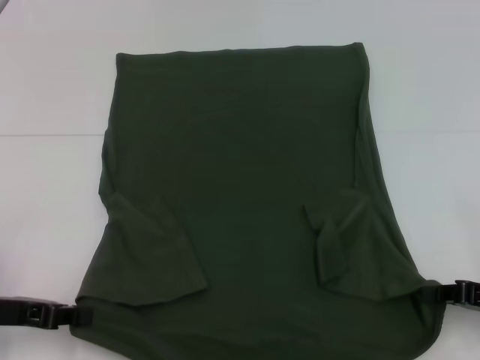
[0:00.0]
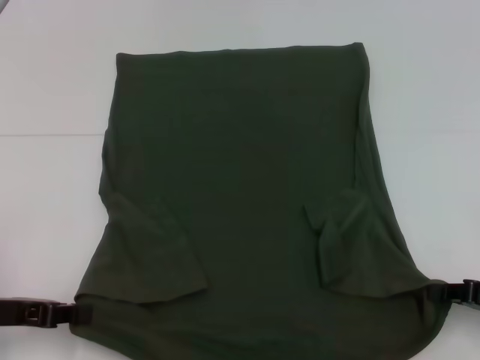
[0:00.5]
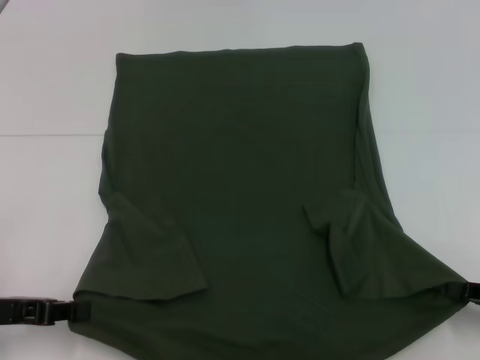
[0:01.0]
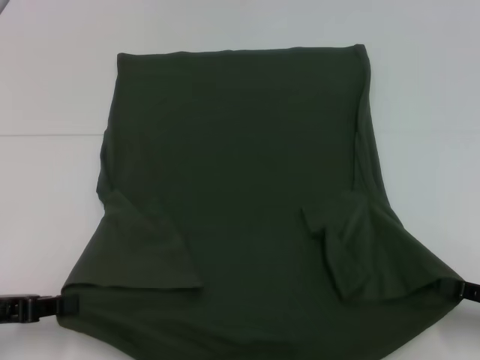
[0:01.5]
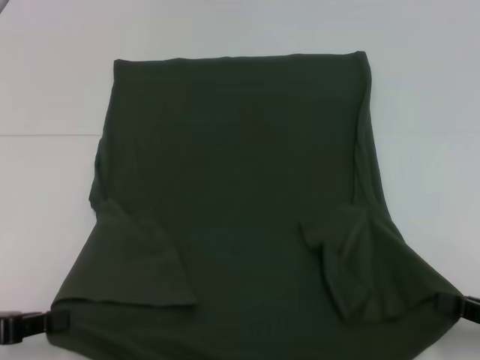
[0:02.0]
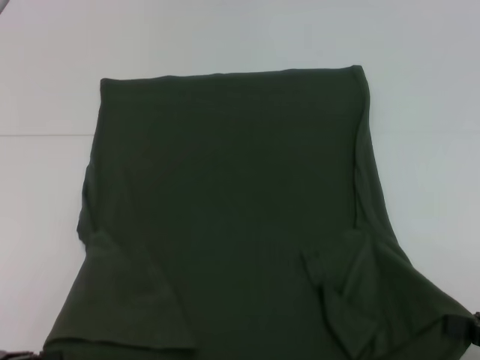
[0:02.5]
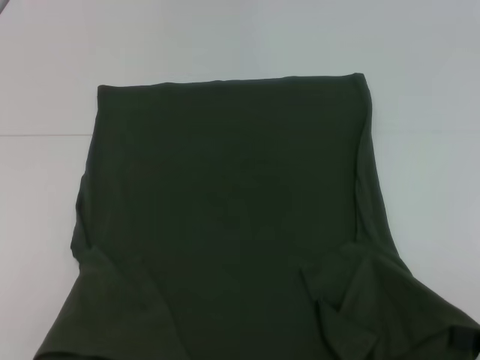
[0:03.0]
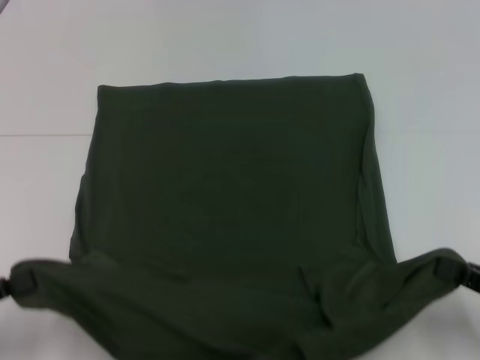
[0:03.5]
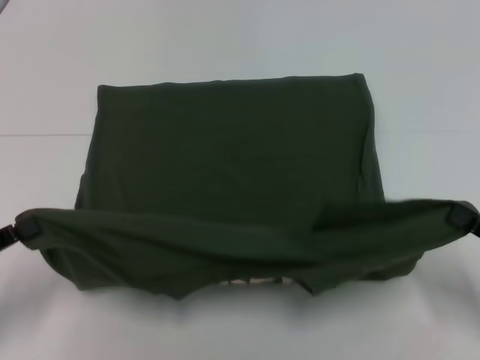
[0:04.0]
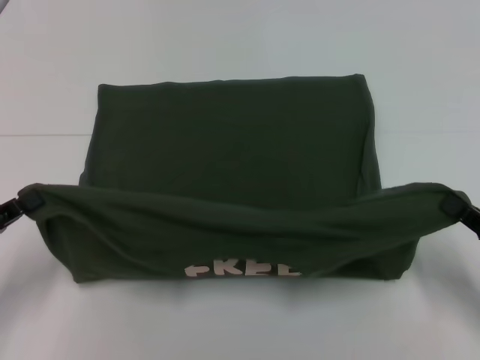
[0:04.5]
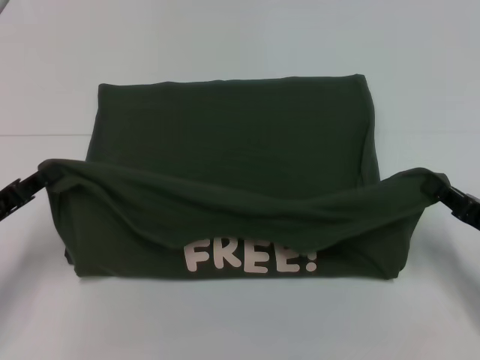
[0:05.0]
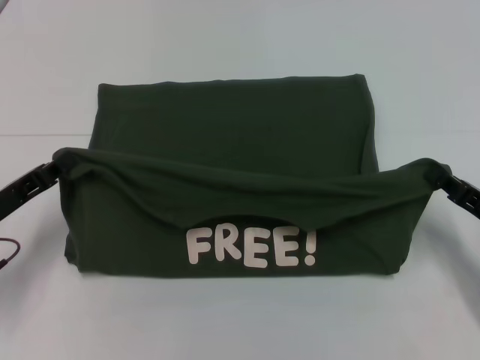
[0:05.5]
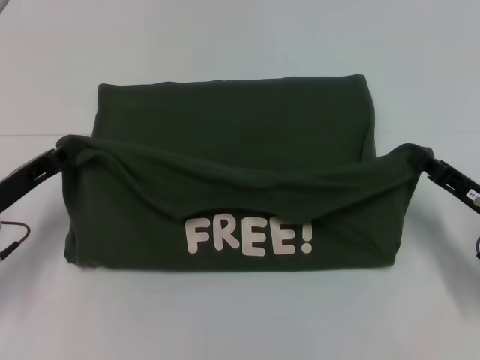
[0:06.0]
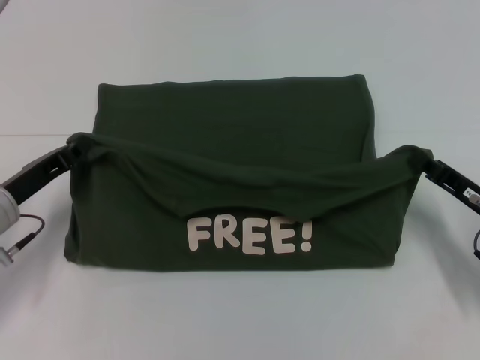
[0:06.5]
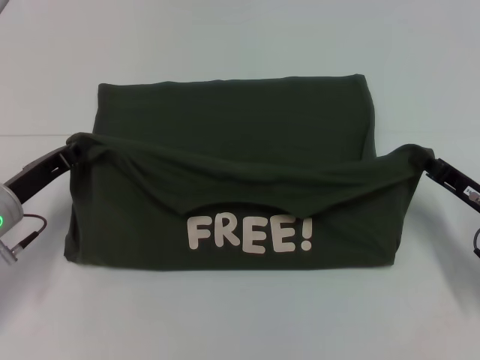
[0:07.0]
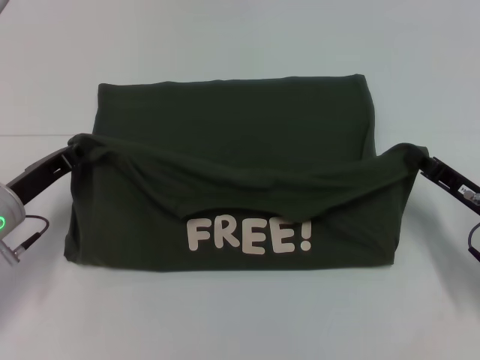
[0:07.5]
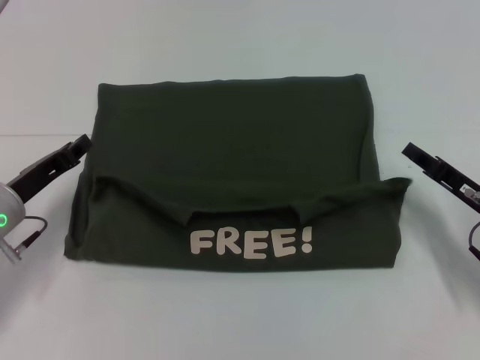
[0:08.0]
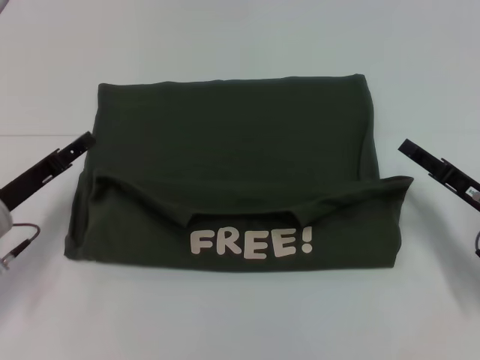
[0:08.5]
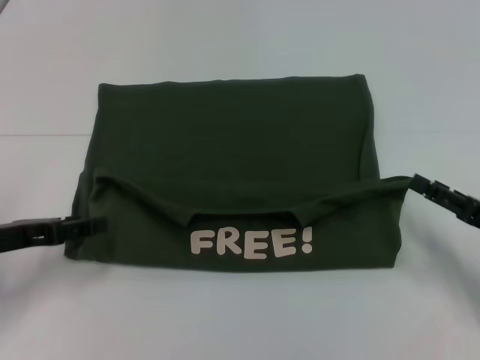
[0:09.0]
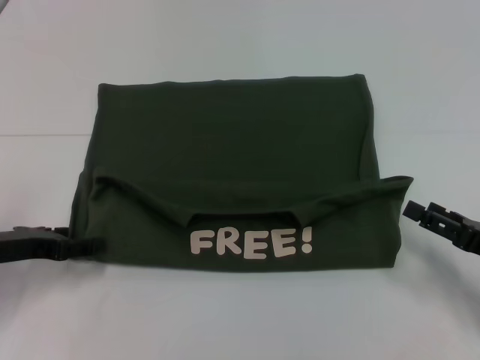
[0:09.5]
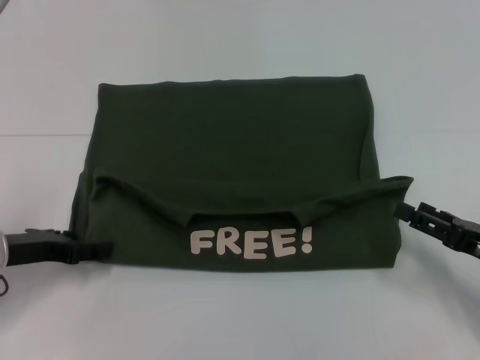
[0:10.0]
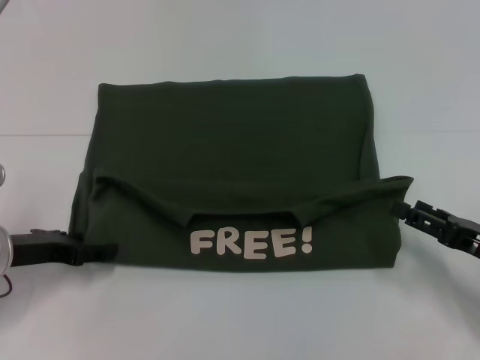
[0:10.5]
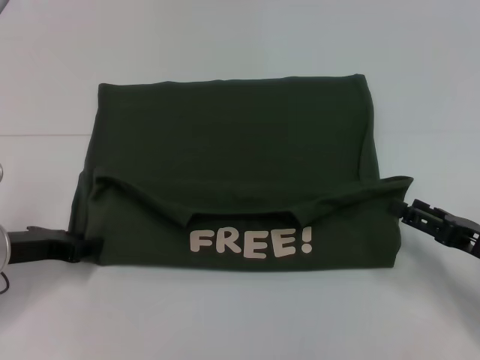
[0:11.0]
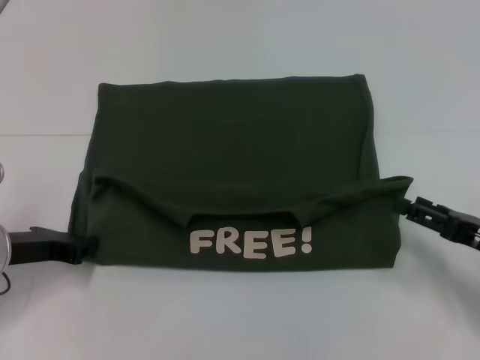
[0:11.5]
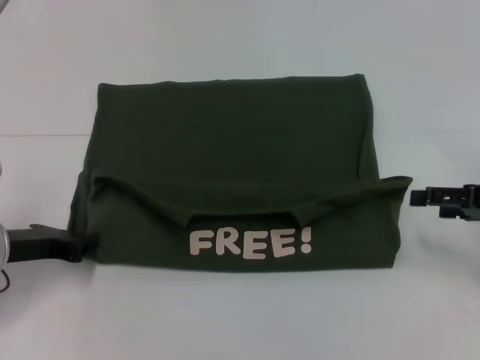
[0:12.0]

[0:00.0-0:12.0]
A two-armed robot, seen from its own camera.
Step, 0:00.0 to 0:08.0: Fold the clothes with your left hand.
Step, 0:00.0 to 0:08.0: Fold the clothes with your right hand.
0:00.0 to 0:02.0: The left gripper ends up roughly 5 cm from where it was; the right gripper is displaced backward by roughly 5 cm.
0:04.0 to 0:06.0: The right gripper goes roughly 10 cm forward and to the left; the left gripper moves forward and to the right, about 10 cm.
0:06.0 to 0:08.0: The grippers make only small movements.
0:08.0 to 0:10.0: The left gripper opens; the right gripper goes some 5 cm backward, and opens up.
0:10.0 to 0:12.0: The right gripper is displaced upward and forward by about 10 cm. The left gripper closes up.

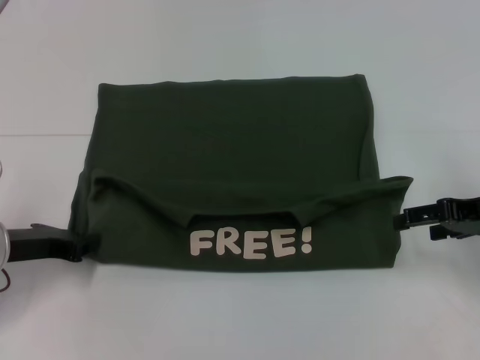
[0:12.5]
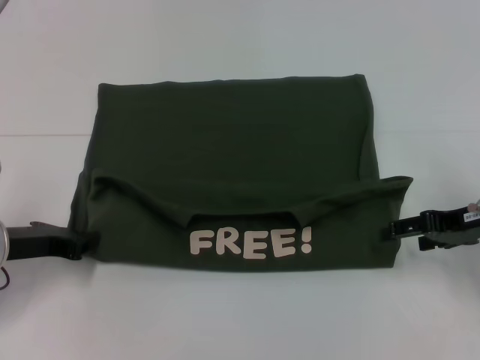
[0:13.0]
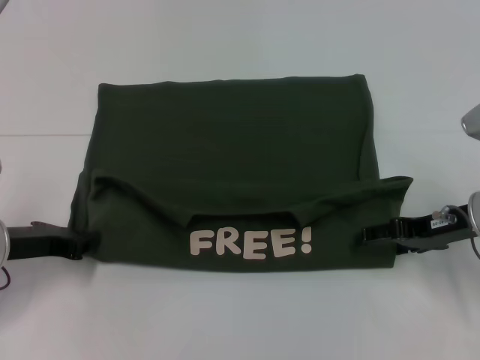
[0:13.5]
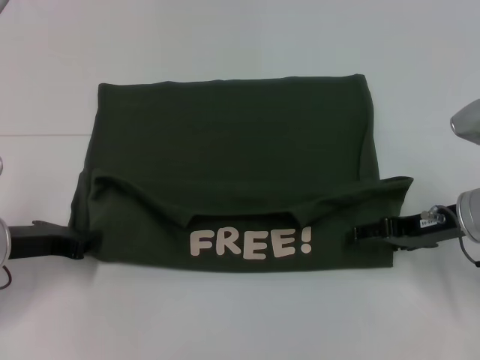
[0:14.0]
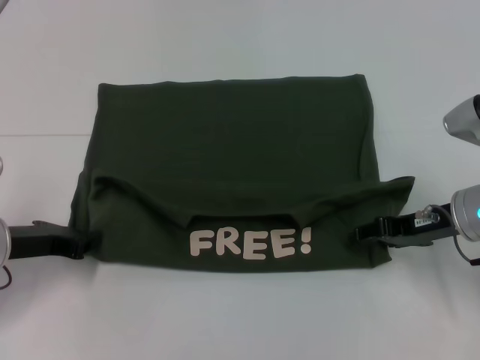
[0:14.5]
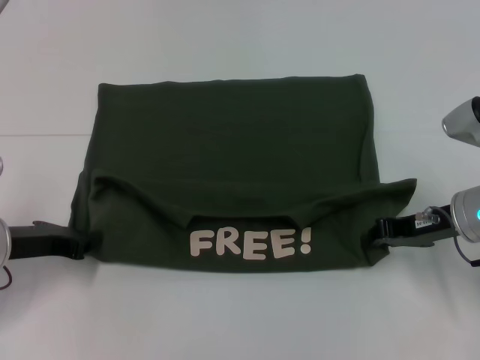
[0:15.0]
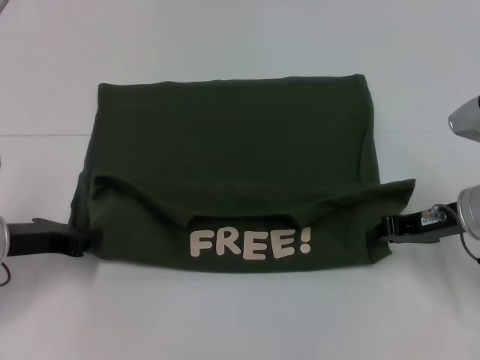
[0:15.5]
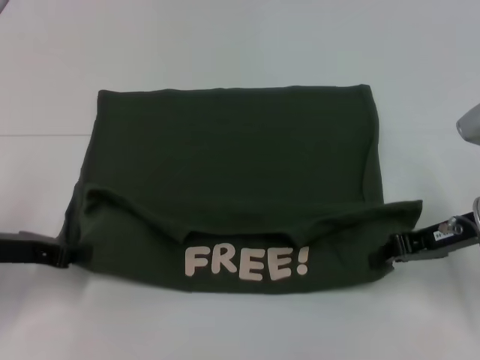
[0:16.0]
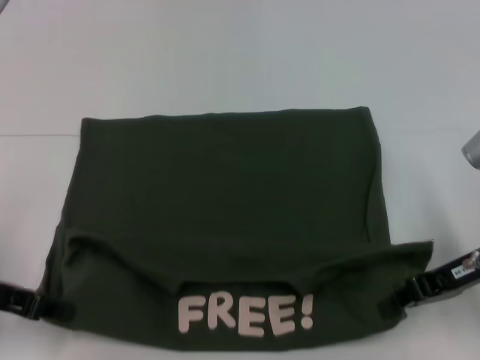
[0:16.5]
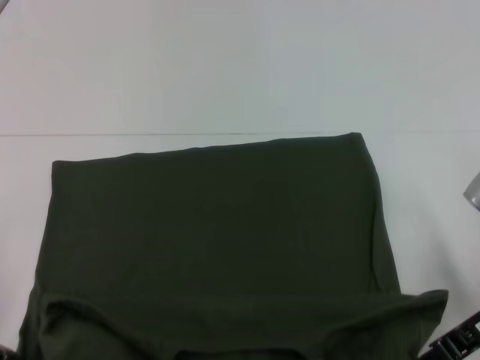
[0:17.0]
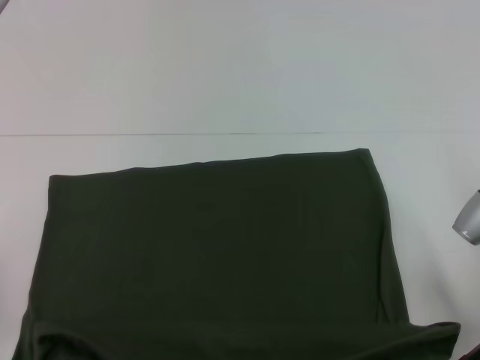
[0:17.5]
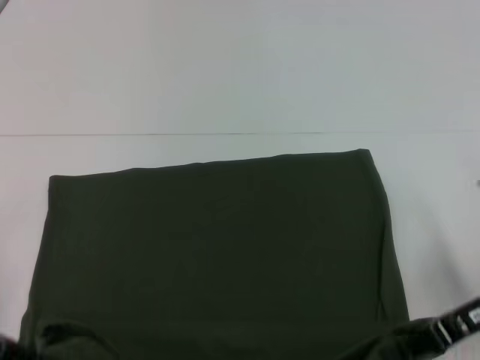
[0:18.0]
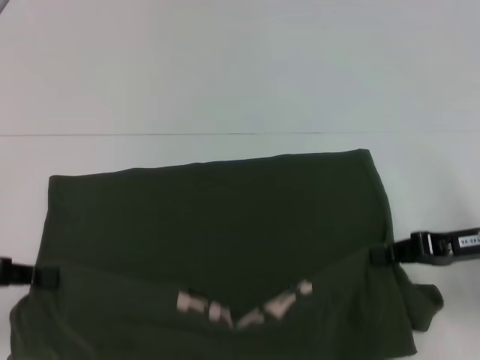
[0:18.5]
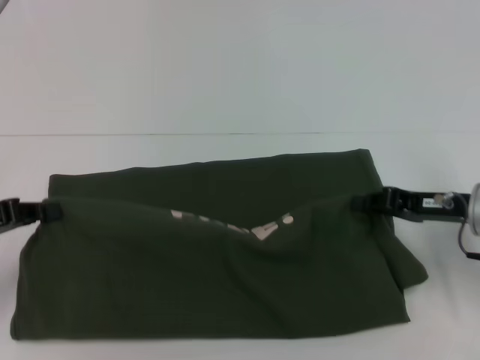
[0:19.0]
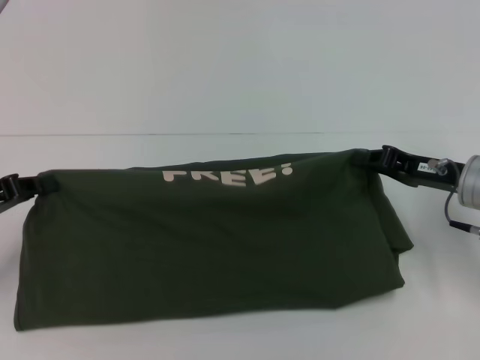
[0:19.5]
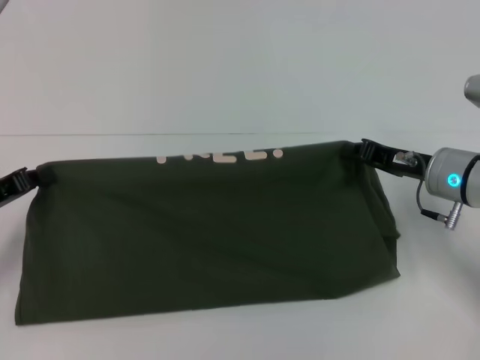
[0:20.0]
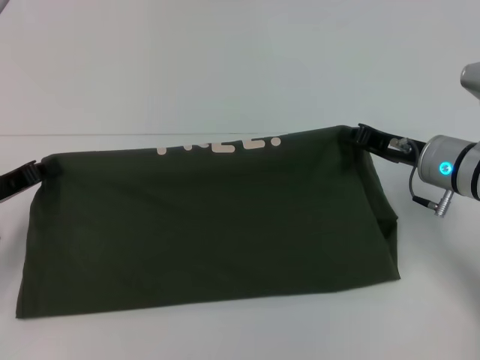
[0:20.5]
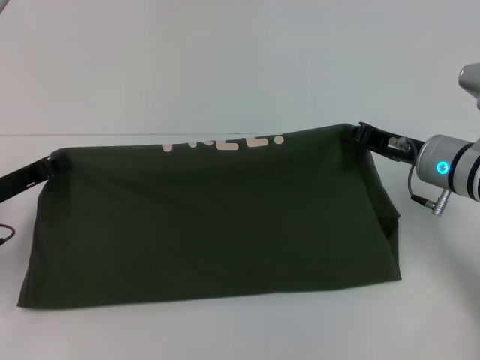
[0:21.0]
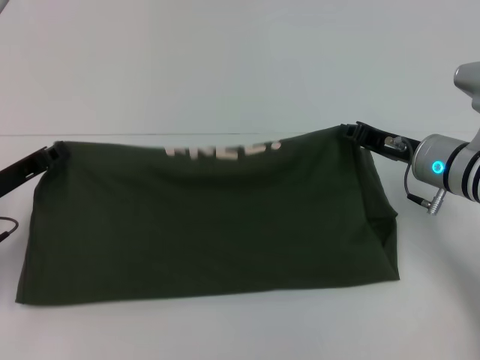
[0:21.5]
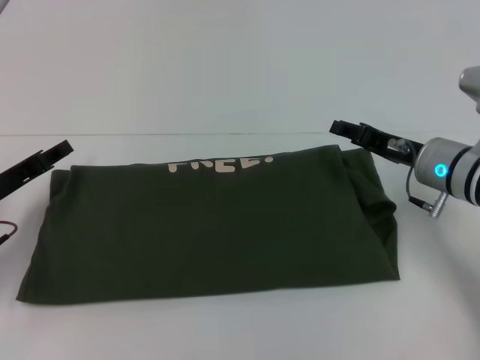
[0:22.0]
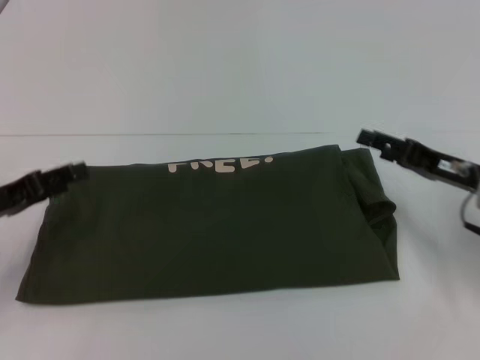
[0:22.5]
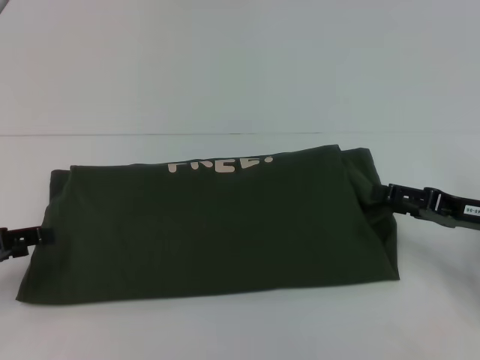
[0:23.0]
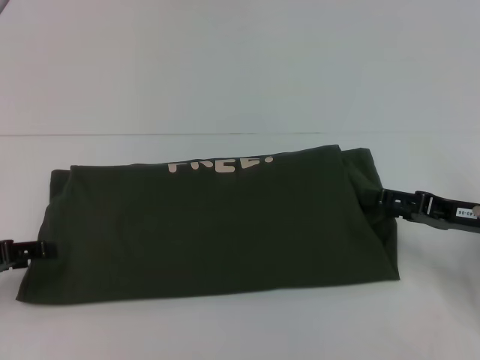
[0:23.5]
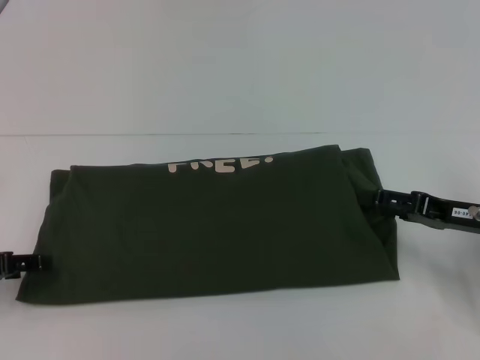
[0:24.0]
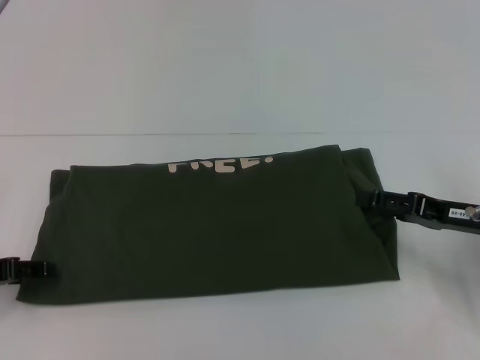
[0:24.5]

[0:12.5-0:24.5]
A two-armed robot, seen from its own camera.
Step, 0:12.5 to 0:17.5: Pull the clothes with your left hand.
Step, 0:12.5 to 0:17.5: Pull the clothes with your right hand.
Step, 0:18.0 to 0:21.5: Fold the clothes with your left hand.
Step, 0:18.0 to 0:21.5: Fold the clothes with your right hand.
0:12.5 to 0:14.5: The right gripper moves to the left, roughly 5 cm.
0:14.5 to 0:16.5: The right gripper closes up. Meanwhile the left gripper shifts by approximately 5 cm.
0:18.5 to 0:20.5: The right gripper travels forward and to the left by approximately 10 cm. Meanwhile the left gripper heads forward and downward, covering about 10 cm.
0:20.5 to 0:22.5: The right gripper goes about 5 cm to the right, and opens up. Meanwhile the left gripper opens up.

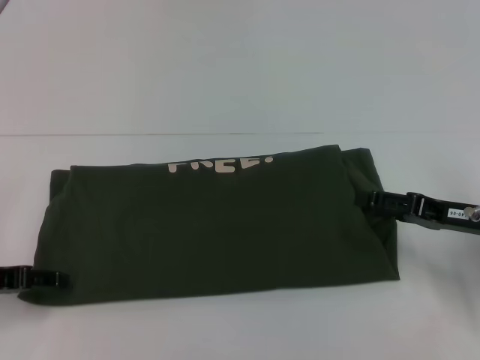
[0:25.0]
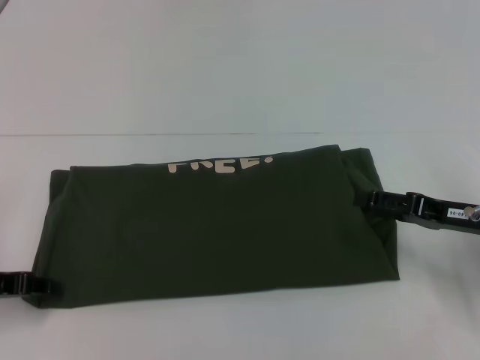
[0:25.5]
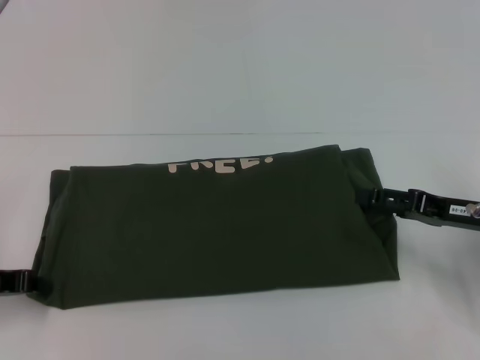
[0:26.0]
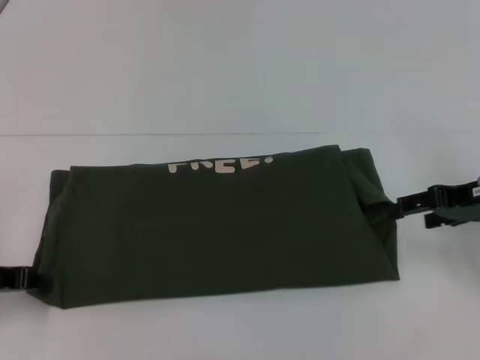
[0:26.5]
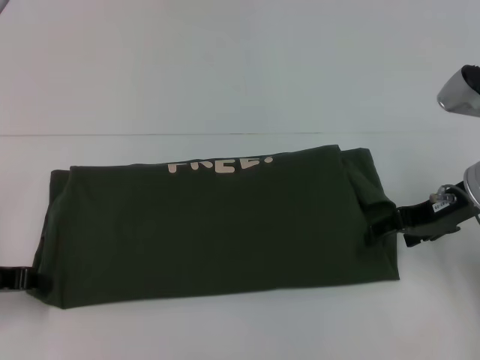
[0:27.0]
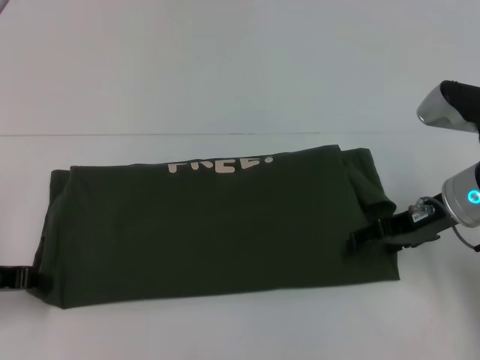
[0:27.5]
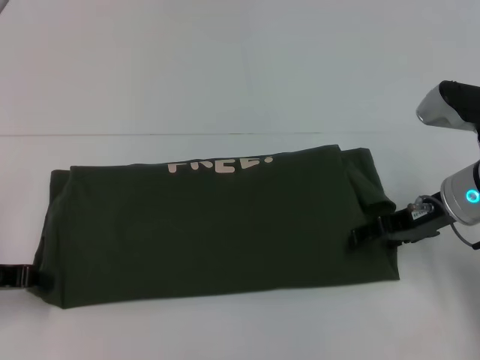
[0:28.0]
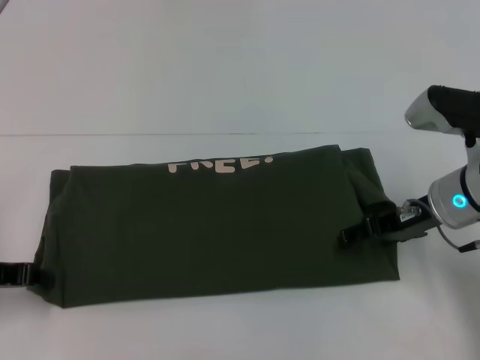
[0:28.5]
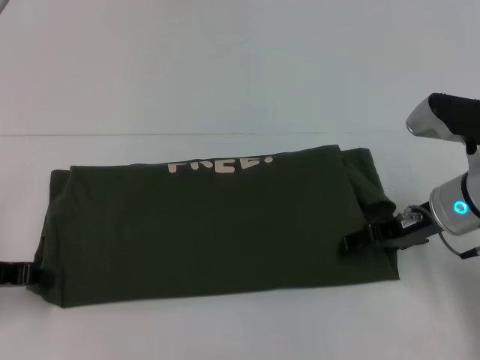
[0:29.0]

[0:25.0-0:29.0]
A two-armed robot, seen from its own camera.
0:25.0 to 0:27.0: The right gripper moves upward, about 5 cm.
0:27.0 to 0:29.0: The grippers make only small movements.
